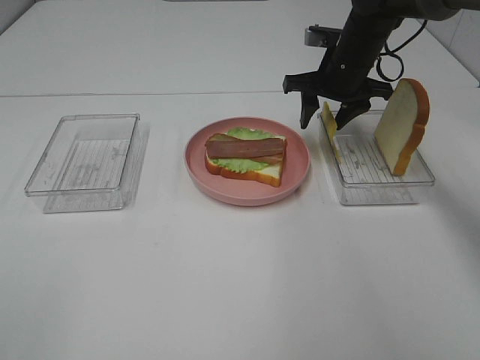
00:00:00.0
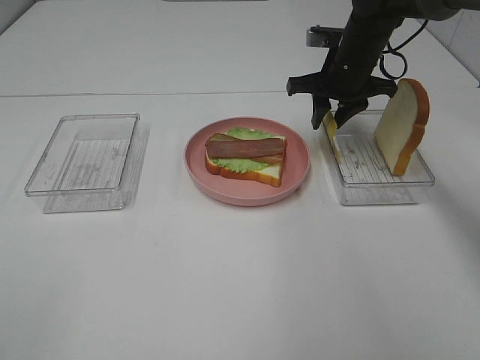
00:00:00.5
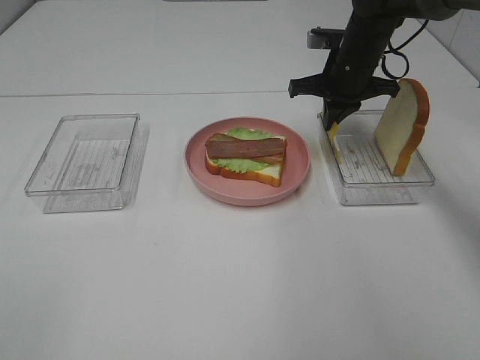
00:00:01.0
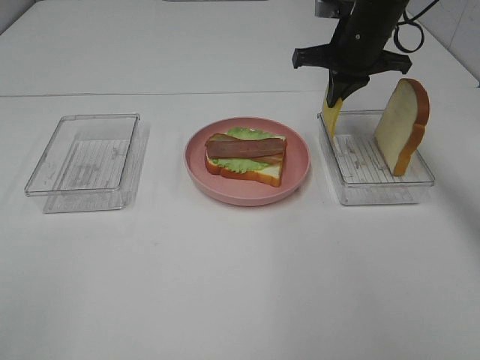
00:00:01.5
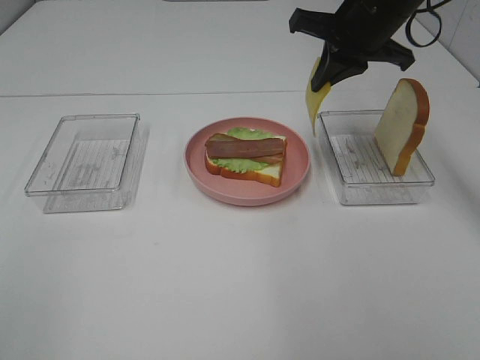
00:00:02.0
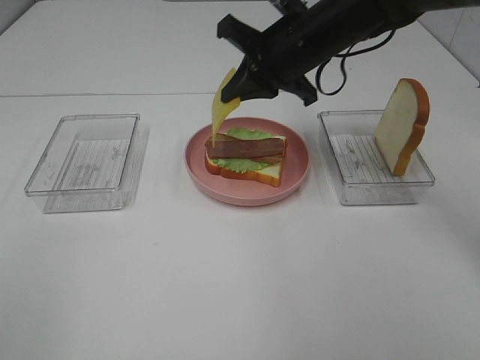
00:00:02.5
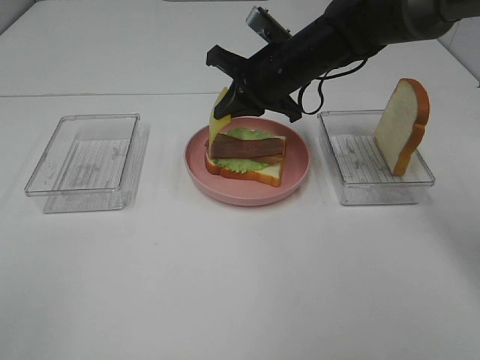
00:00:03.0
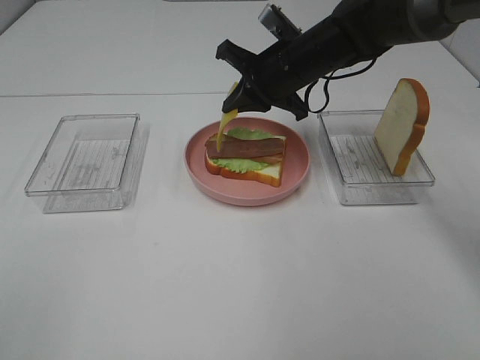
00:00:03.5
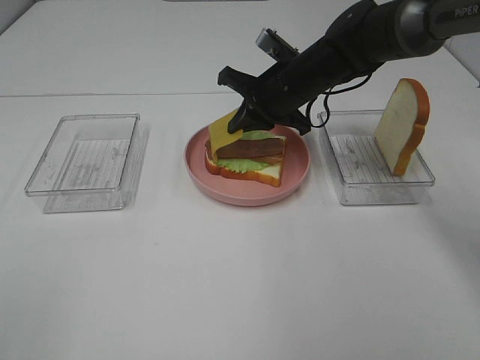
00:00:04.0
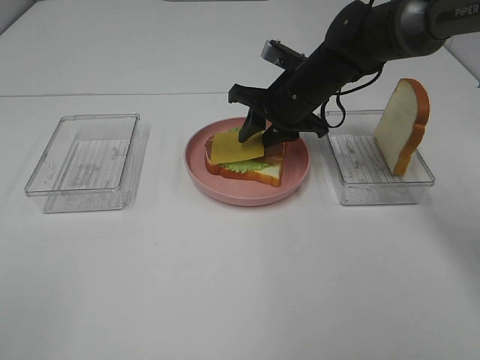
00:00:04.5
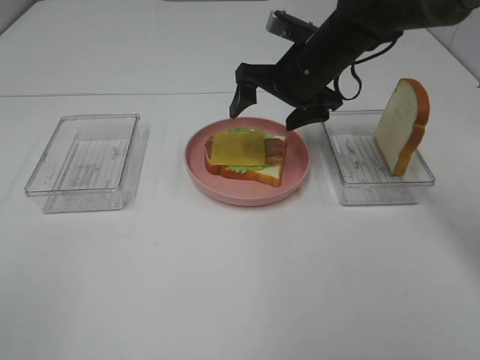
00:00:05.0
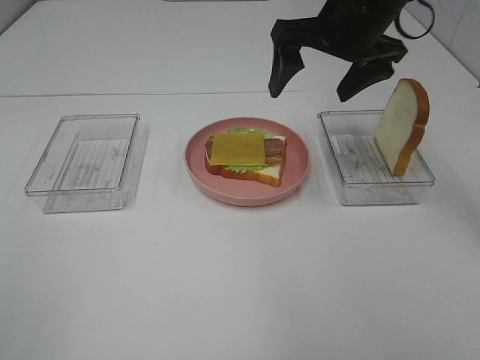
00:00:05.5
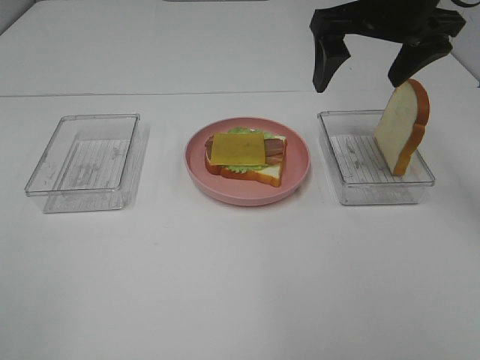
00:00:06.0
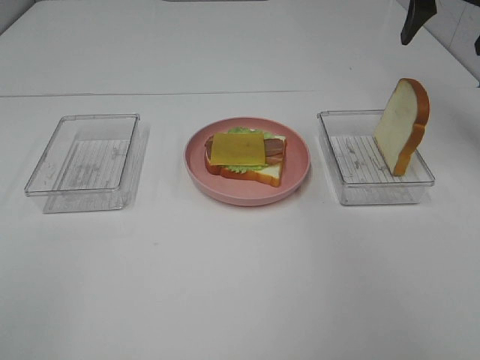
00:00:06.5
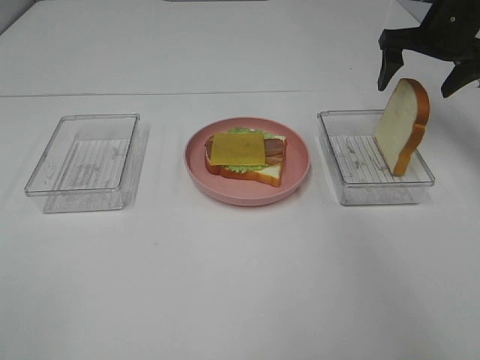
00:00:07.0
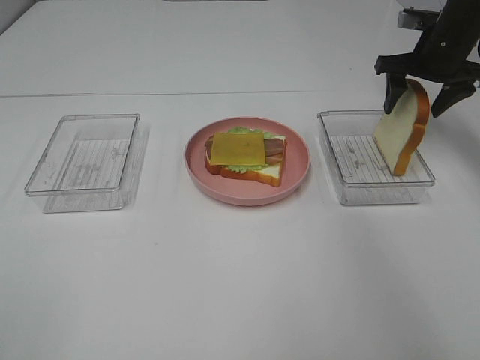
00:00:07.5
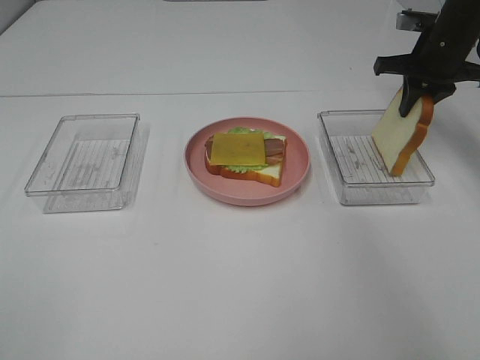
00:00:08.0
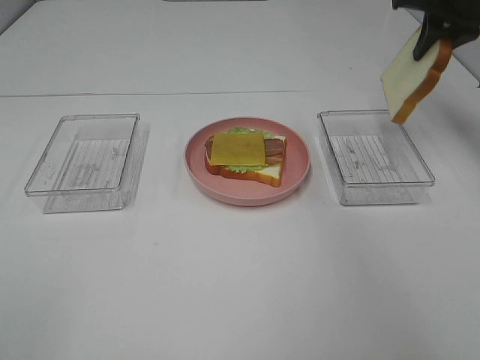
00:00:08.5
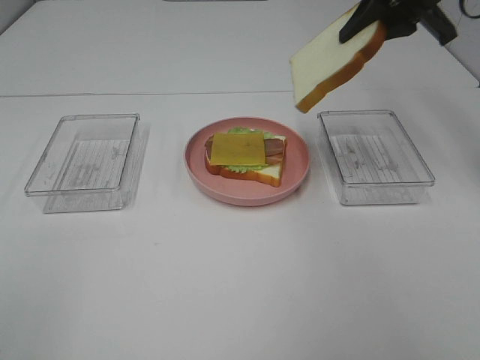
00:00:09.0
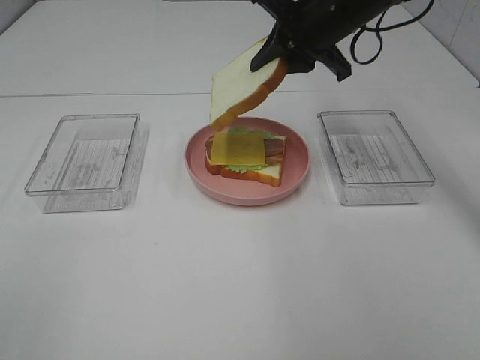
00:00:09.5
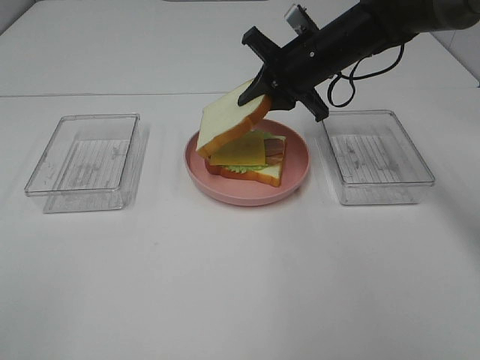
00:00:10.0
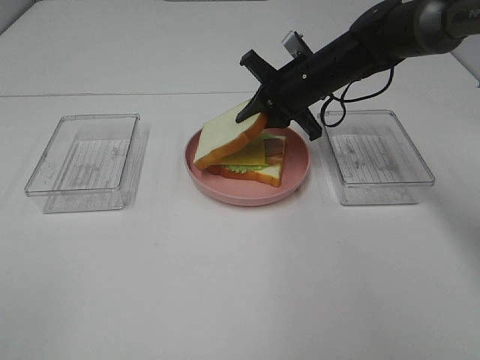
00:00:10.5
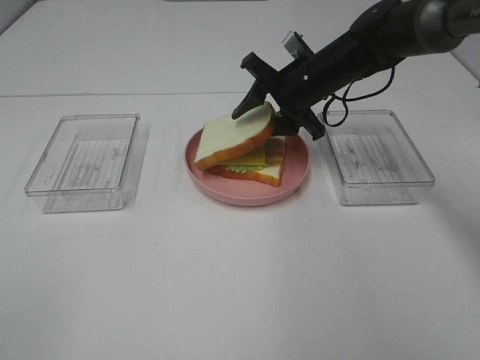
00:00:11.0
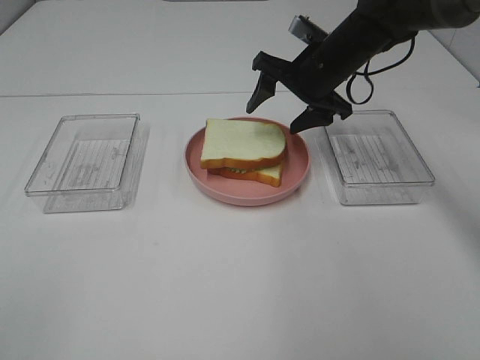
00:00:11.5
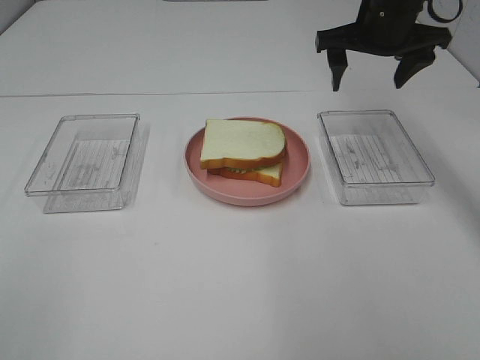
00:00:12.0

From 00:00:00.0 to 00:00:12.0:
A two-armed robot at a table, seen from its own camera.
Task of the whole recording: Make sandwiches.
Step, from 00:00:01.5 to 00:00:04.5: Right hand:place the cheese slice on top of the bacon.
Step, from 00:00:05.0 to 00:00:07.5: Right hand:grab the bread slice.
Step, from 00:00:08.0 to 00:00:11.5: Right hand:place the bread slice on the cheese slice.
From 00:00:00.0 to 00:00:02.0: The right gripper is displaced upward and backward by some 10 cm, and closes.
From 00:00:02.0 to 00:00:04.0: The right gripper travels downward and to the left by roughly 15 cm.
From 00:00:04.0 to 00:00:06.0: The right gripper is displaced upward, to the right and backward by some 20 cm, and opens.
From 00:00:06.0 to 00:00:08.0: The right gripper is displaced to the right, forward and downward by some 20 cm, and closes.
From 00:00:08.0 to 00:00:10.0: The right gripper shifts about 15 cm to the left.
From 00:00:10.0 to 00:00:12.0: The right gripper heads upward and to the right, covering some 10 cm, and opens up.

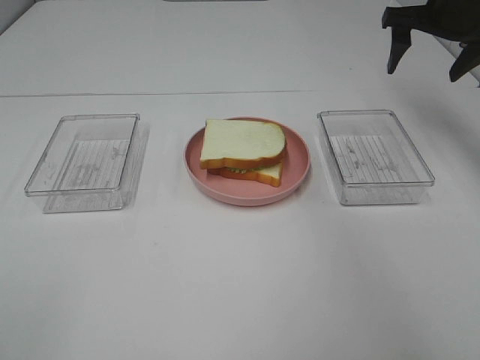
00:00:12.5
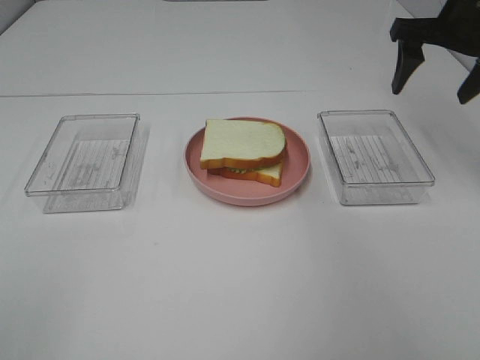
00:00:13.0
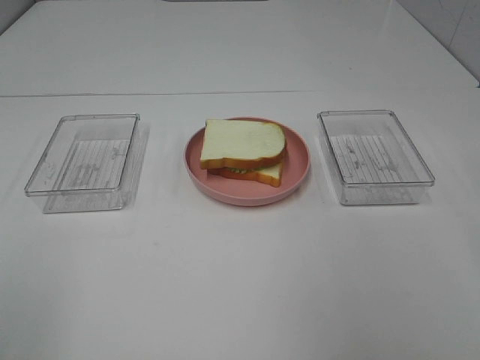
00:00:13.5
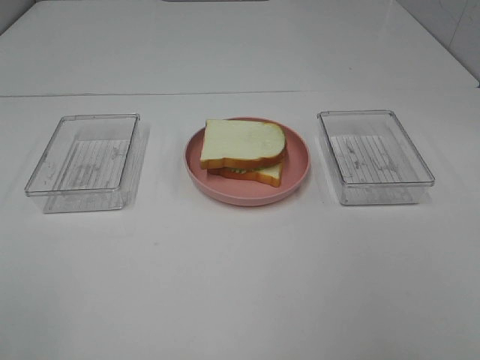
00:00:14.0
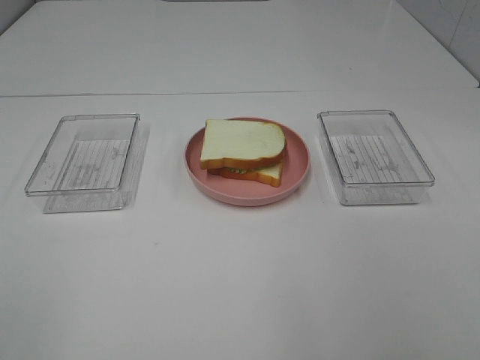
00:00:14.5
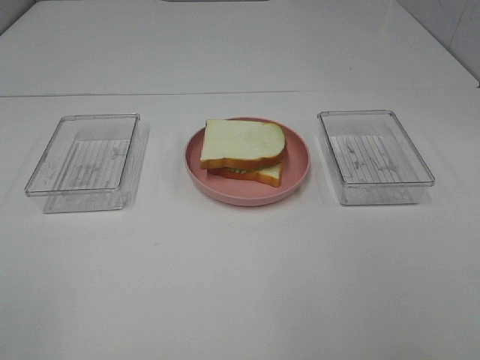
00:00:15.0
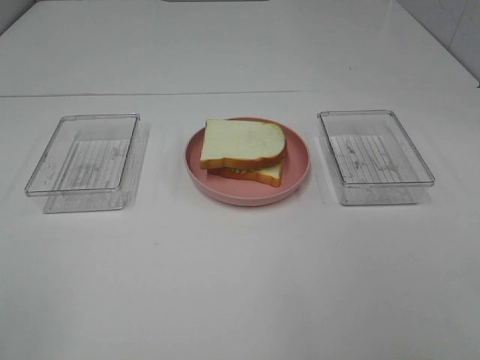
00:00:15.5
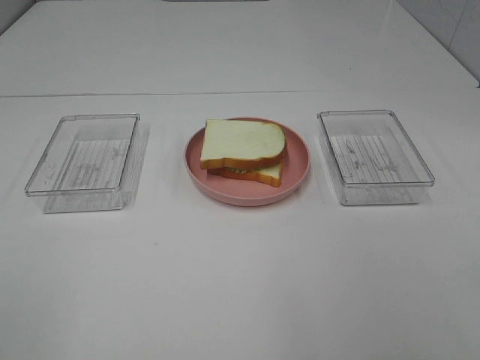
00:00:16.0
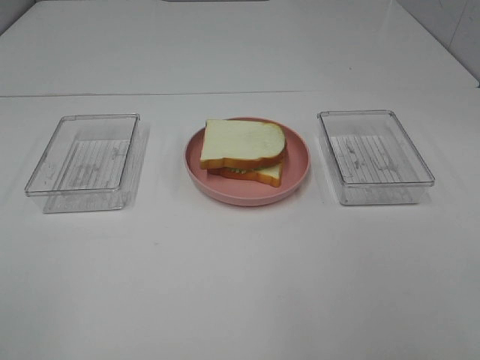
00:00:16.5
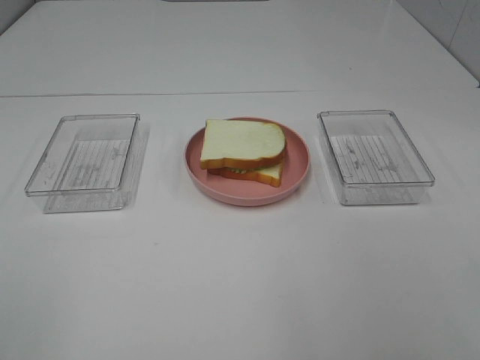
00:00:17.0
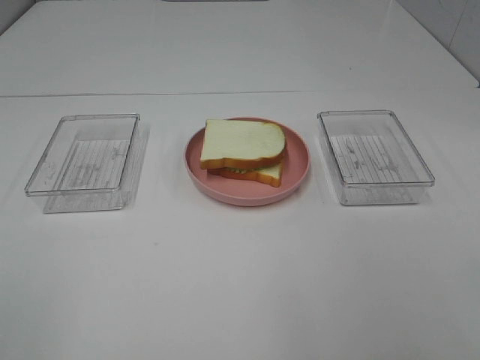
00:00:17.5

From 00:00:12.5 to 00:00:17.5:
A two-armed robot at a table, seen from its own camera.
Task of the whole recording: Make sandwiches.
From 00:00:12.5 to 00:00:15.0: The right gripper heads backward, covering some 50 cm.
From 00:00:15.0 to 00:00:17.5: Both grippers stay put.
